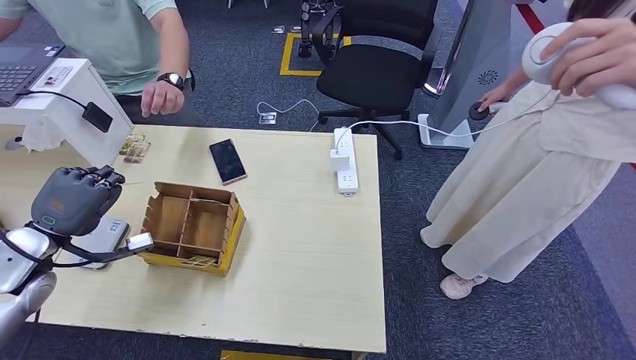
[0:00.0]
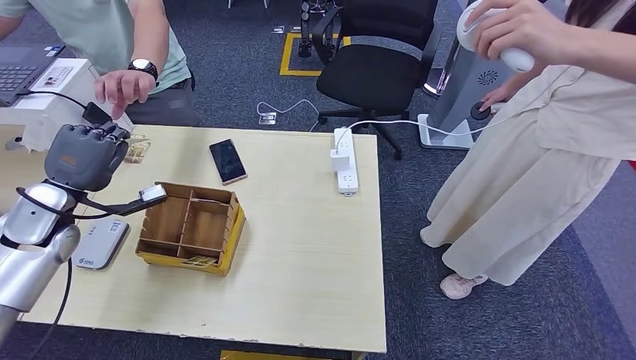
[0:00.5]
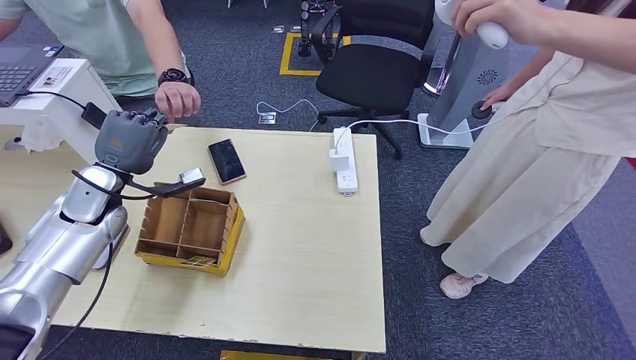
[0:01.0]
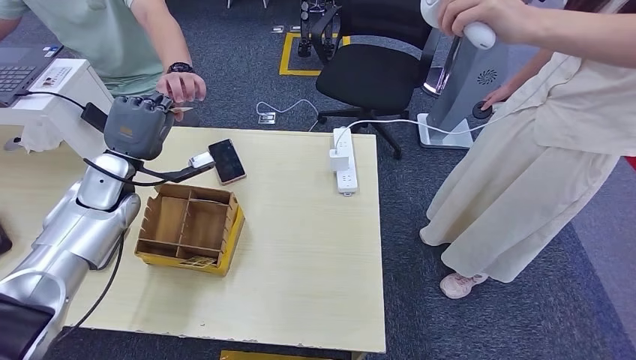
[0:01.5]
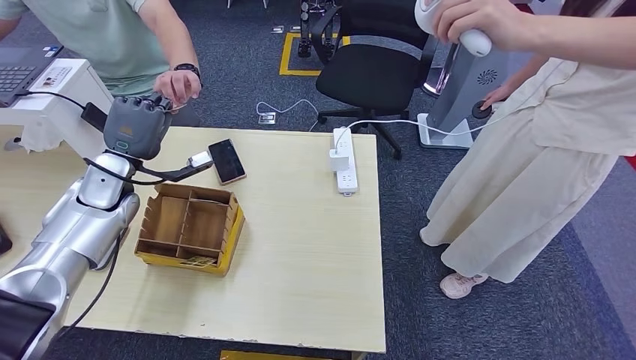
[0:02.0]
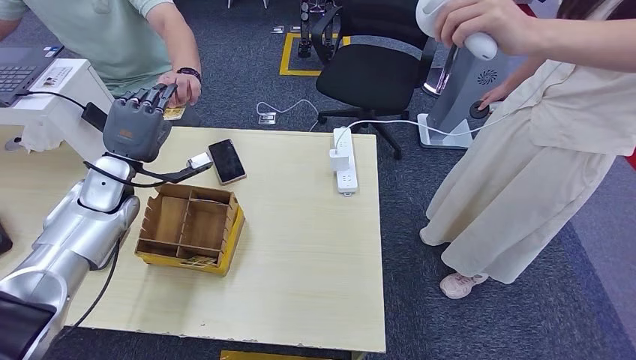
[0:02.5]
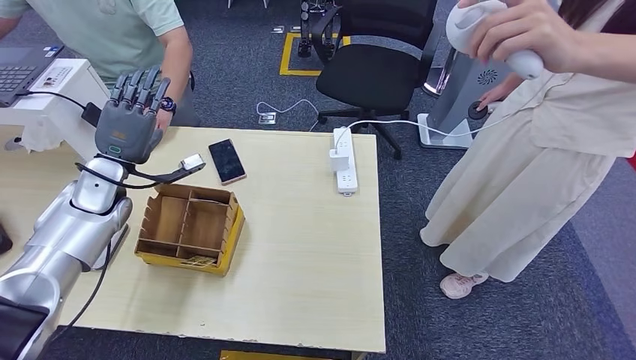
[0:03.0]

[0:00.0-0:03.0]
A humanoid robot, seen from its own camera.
Step, 0:00.0 to 0:03.0: Hand the room key to the person.
0:00.0 to 0:01.5: The left hand goes roughly 15 cm forward and to the right.
0:01.5 to 0:03.0: The hands stay close to where they were, moving slightly.

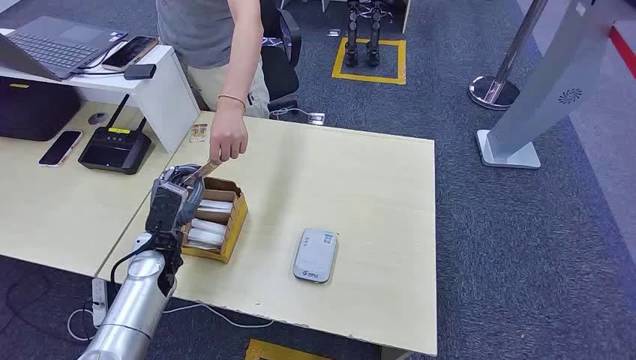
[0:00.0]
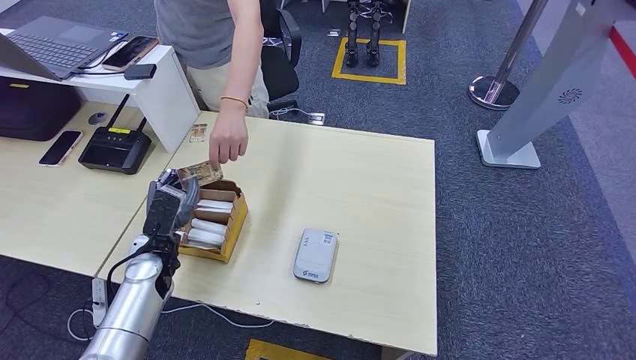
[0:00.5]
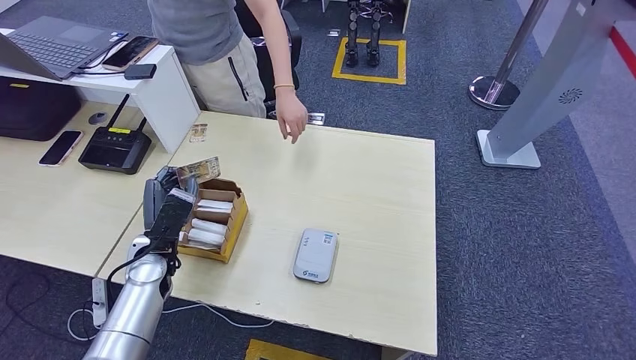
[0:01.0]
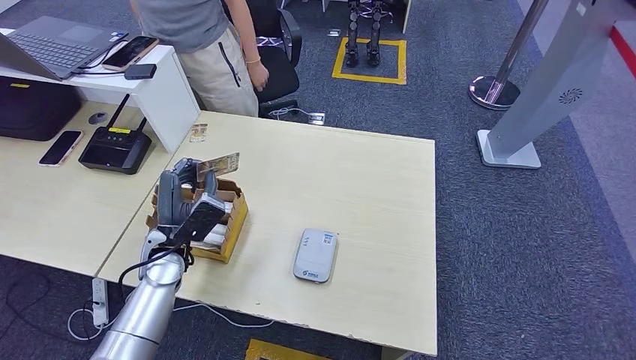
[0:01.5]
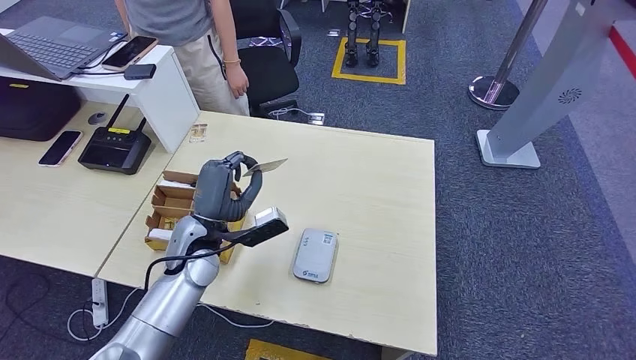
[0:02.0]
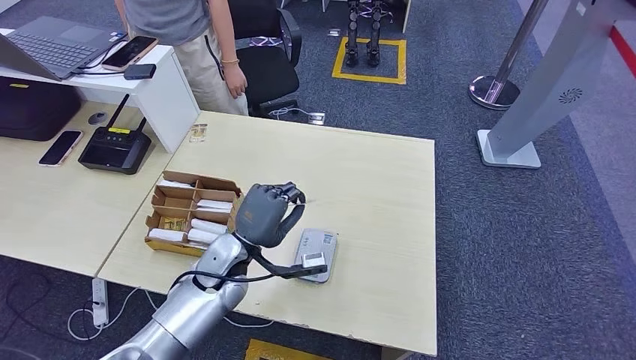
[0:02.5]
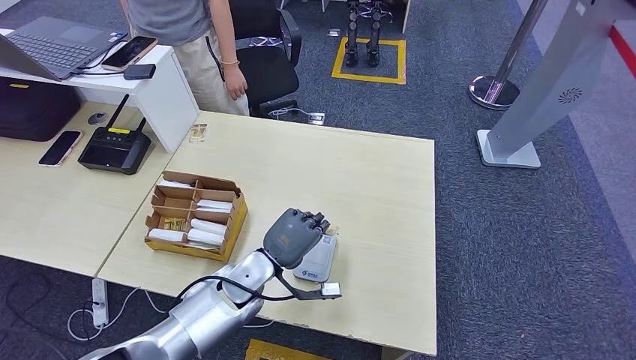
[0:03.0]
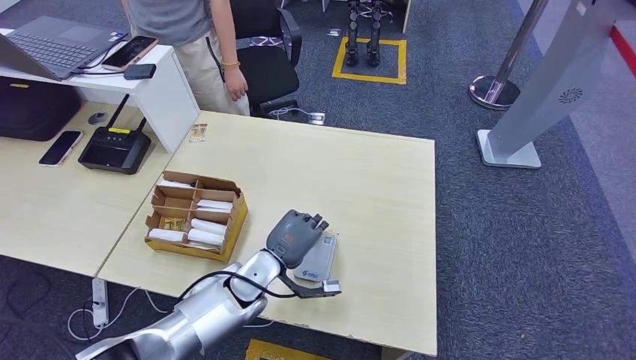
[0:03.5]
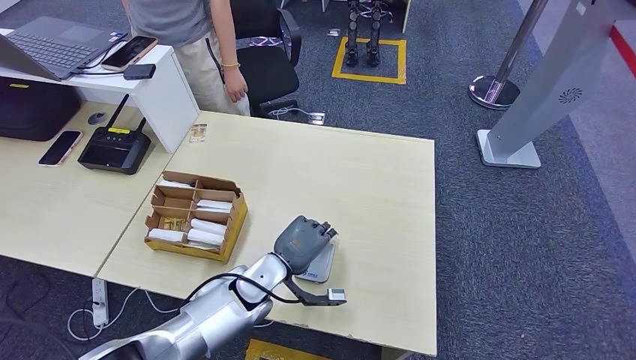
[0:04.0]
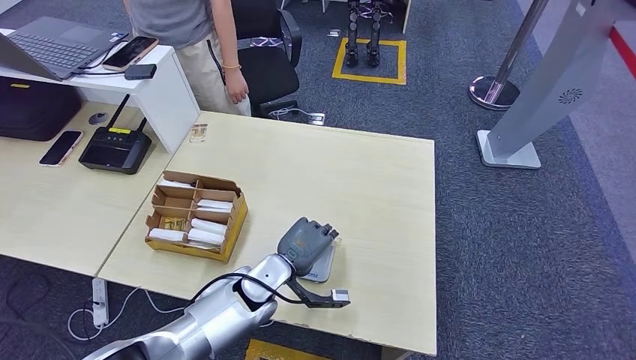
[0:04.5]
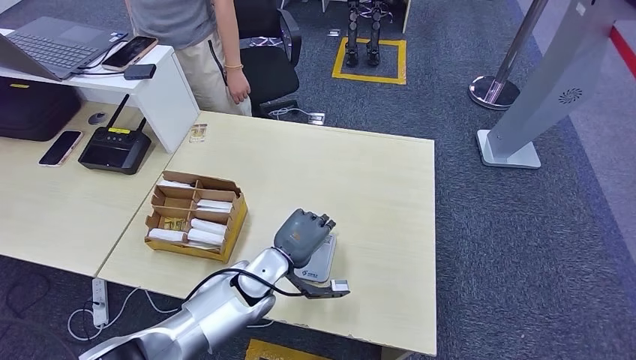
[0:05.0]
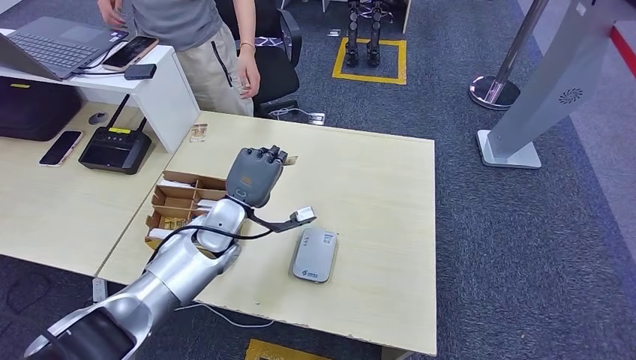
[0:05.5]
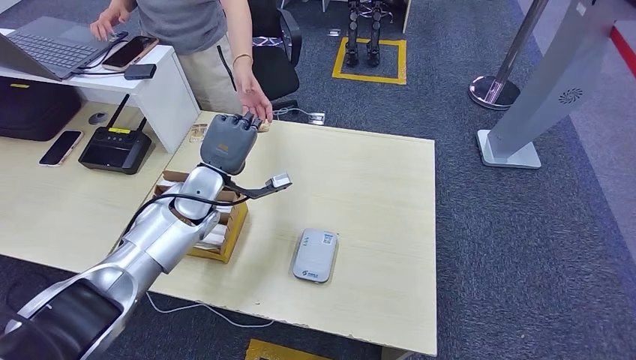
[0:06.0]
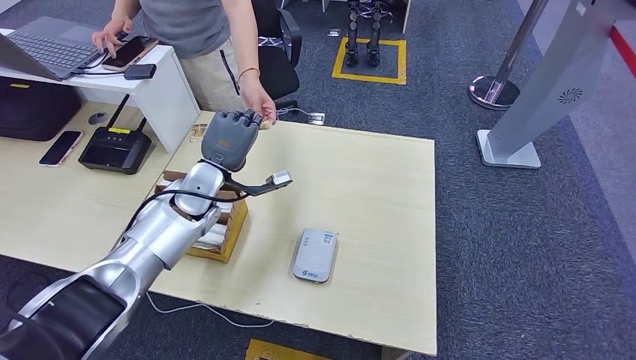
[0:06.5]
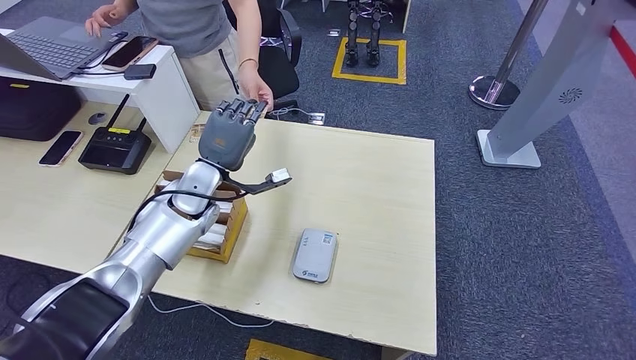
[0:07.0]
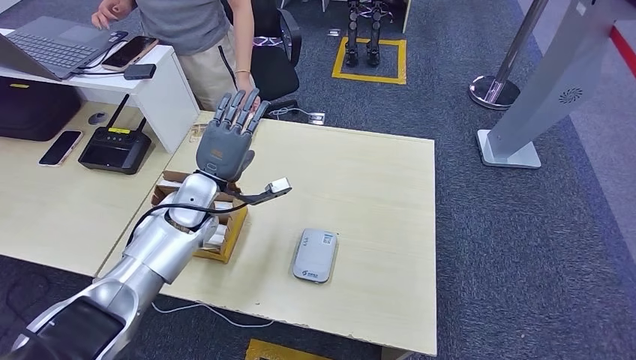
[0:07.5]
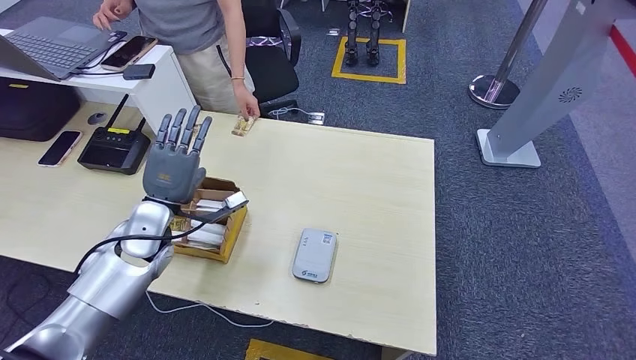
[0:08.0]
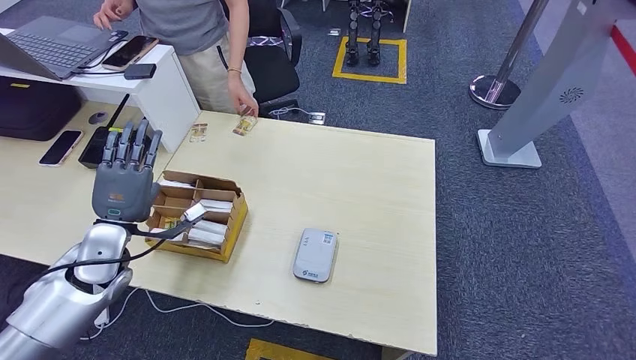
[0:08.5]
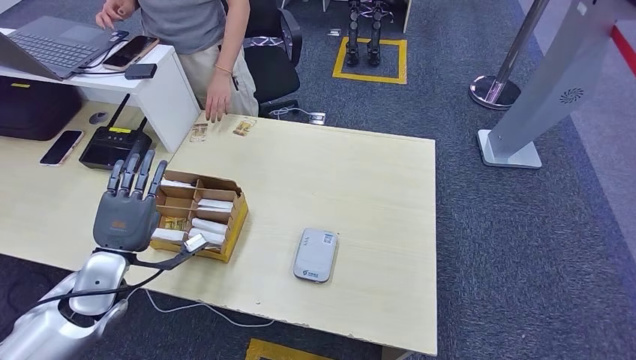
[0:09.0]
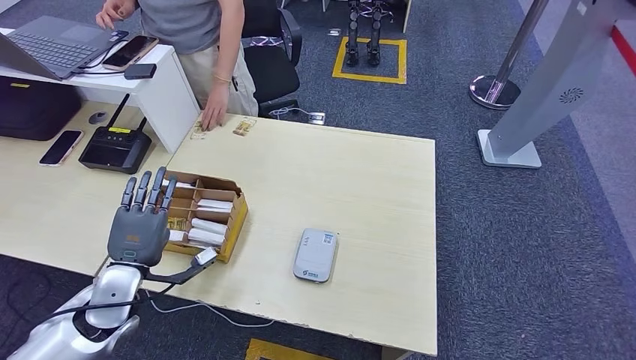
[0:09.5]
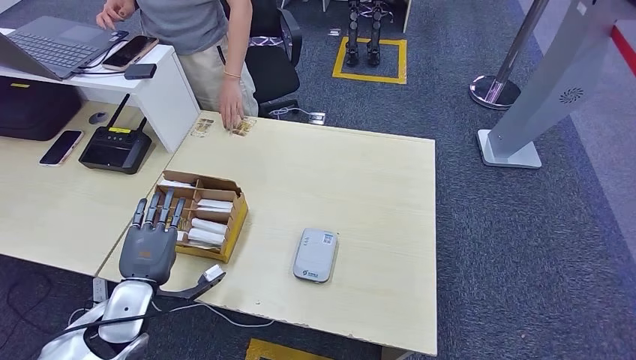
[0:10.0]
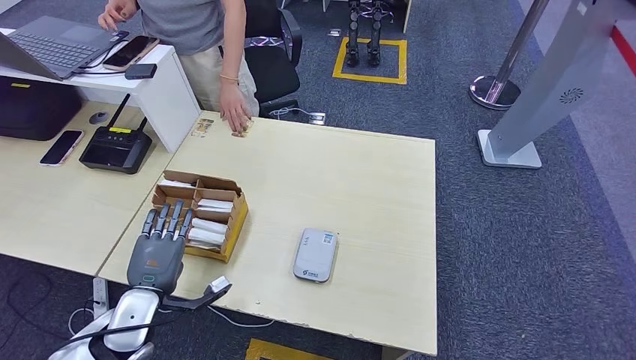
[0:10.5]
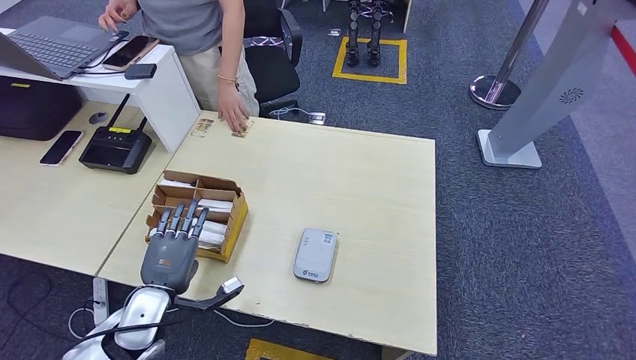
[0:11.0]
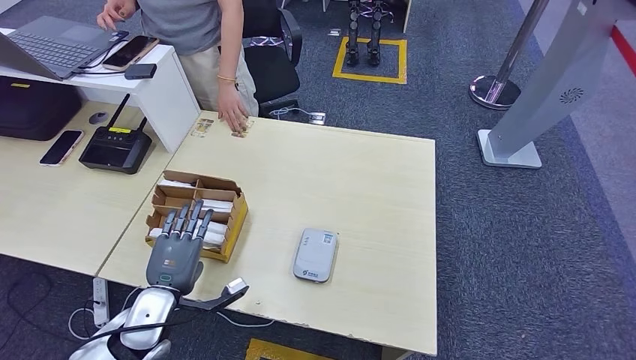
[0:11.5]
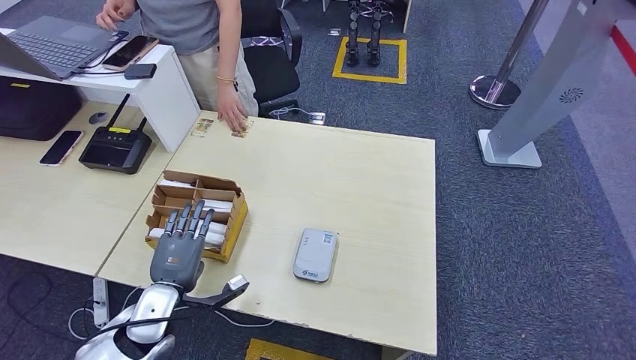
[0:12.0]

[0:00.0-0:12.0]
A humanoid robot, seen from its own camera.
Step, 0:00.0 to 0:00.5: Take the ID card from the person's hand.
Step, 0:01.0 to 0:04.0: Place the ID card on the card reader.
Step, 0:04.5 to 0:06.5: Hand the ID card to the person.
0:02.0 to 0:04.0: The left hand shifts some 15 cm to the right and downward.
0:04.0 to 0:06.0: The left hand is displaced to the left, upward and forward by approximately 20 cm.
0:06.0 to 0:08.0: The left hand moves backward and to the left, some 10 cm.
0:08.0 to 0:10.0: The left hand heads backward and downward, covering about 15 cm.
0:10.0 to 0:12.0: There are only small adjustments of the hands.

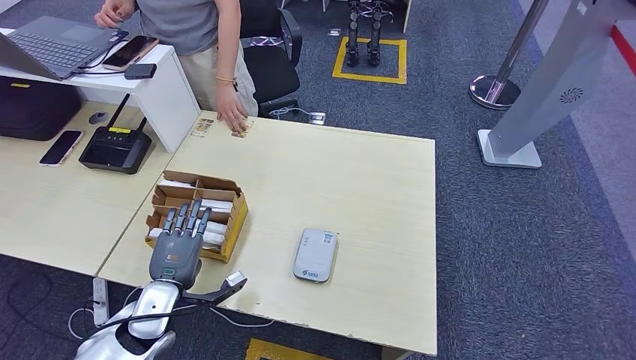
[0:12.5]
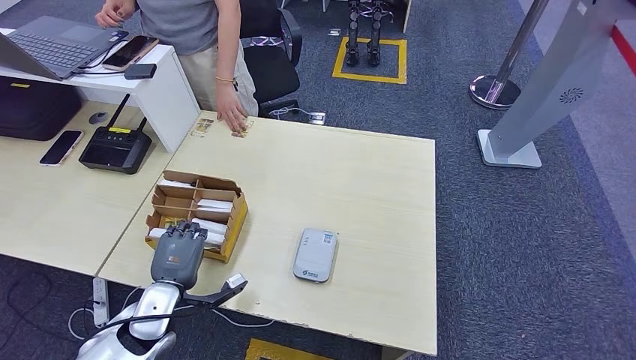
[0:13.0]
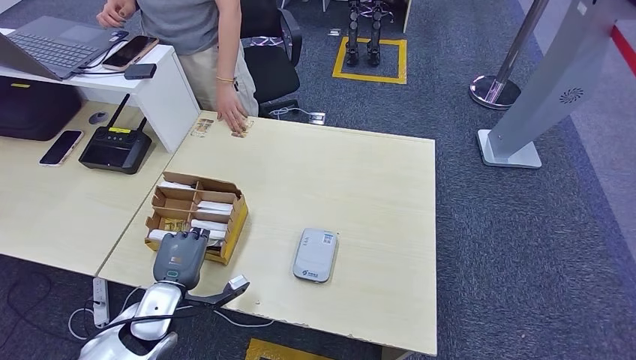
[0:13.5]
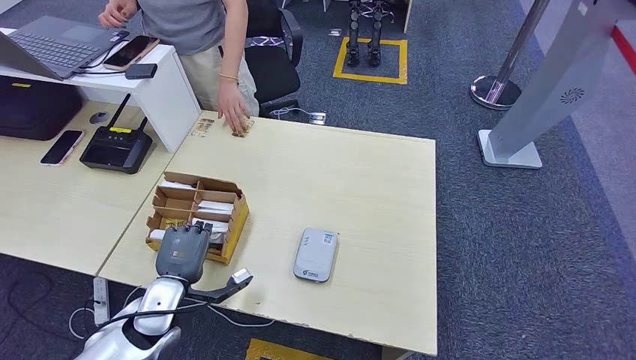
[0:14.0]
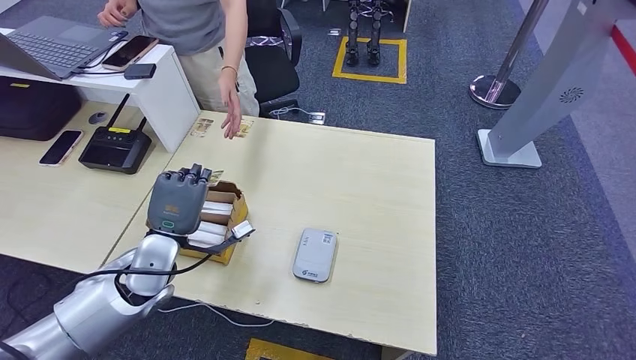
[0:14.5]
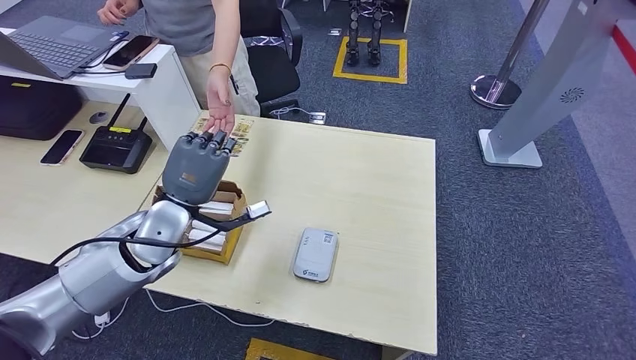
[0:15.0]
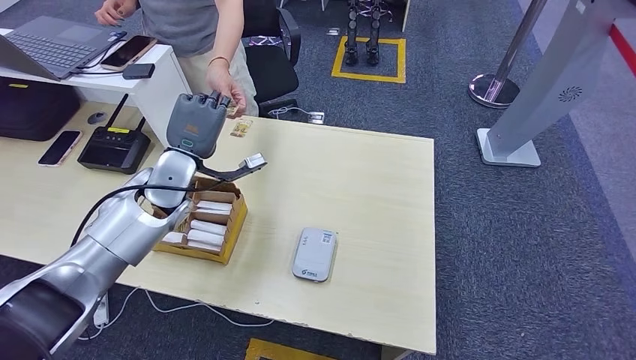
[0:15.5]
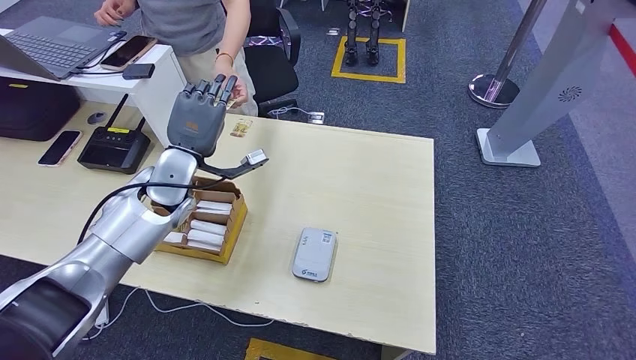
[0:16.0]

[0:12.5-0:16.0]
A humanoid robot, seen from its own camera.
Step, 0:14.5 to 0:16.0: Hand the room key to the person.
0:12.5 to 0:14.5: The left hand heads upward and forward, covering roughly 10 cm.
0:14.5 to 0:16.0: The left hand travels forward and upward by approximately 15 cm.
